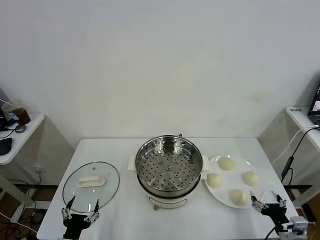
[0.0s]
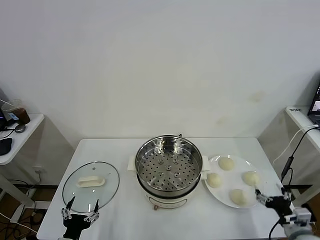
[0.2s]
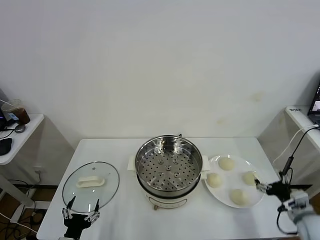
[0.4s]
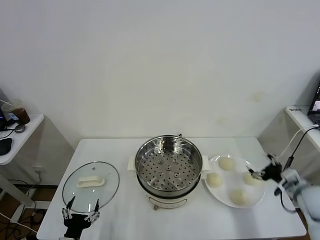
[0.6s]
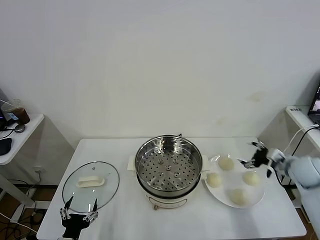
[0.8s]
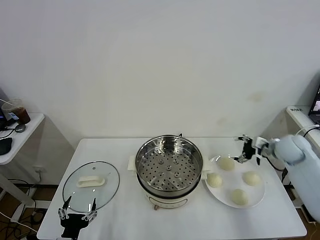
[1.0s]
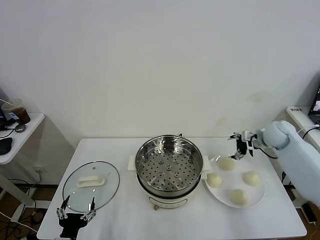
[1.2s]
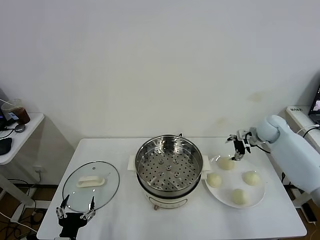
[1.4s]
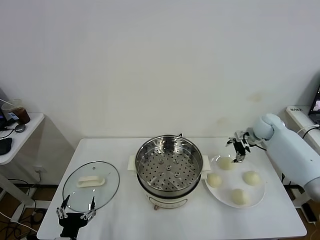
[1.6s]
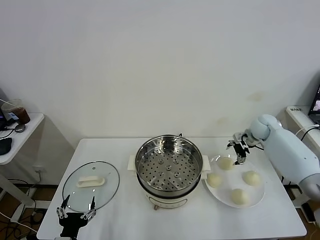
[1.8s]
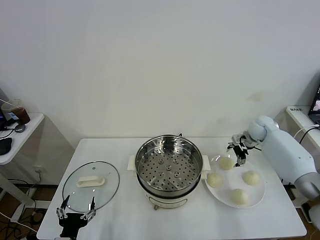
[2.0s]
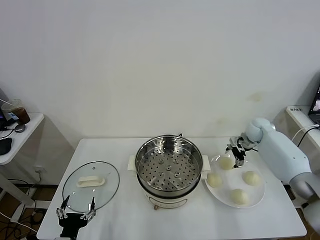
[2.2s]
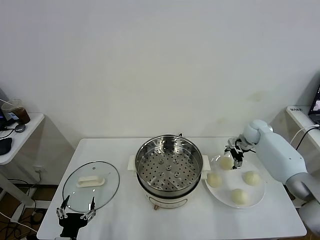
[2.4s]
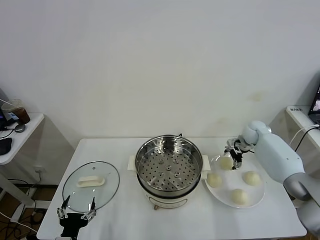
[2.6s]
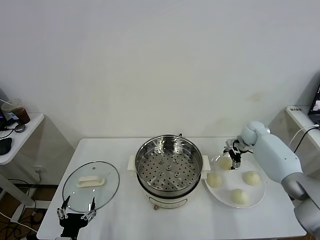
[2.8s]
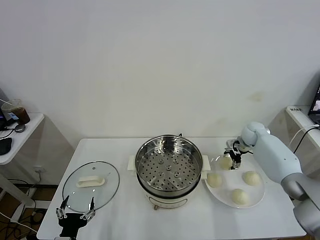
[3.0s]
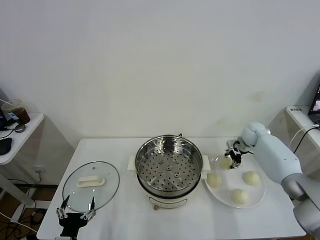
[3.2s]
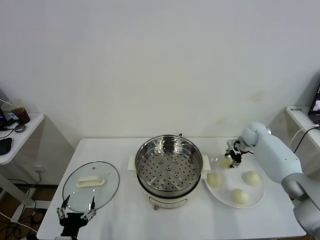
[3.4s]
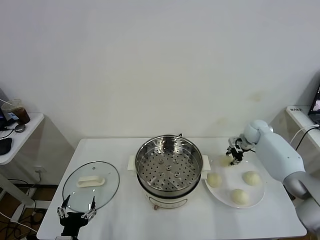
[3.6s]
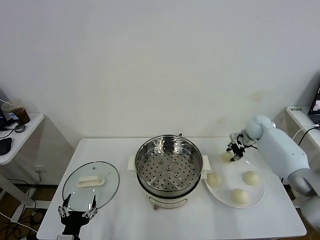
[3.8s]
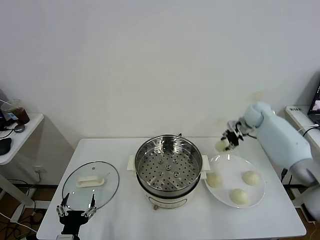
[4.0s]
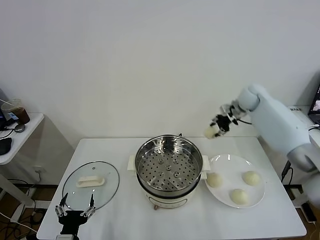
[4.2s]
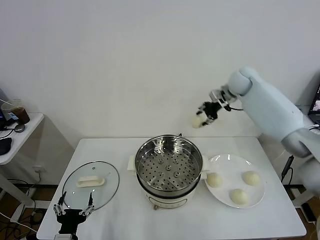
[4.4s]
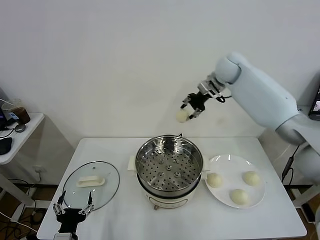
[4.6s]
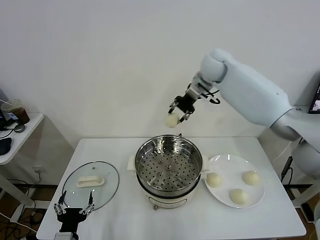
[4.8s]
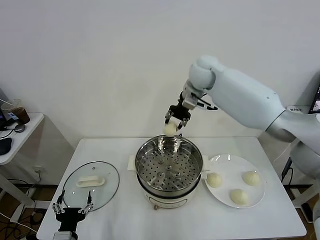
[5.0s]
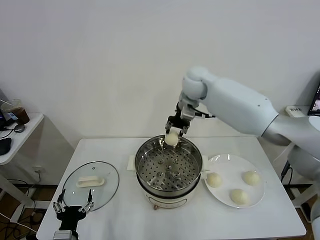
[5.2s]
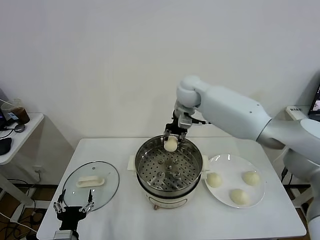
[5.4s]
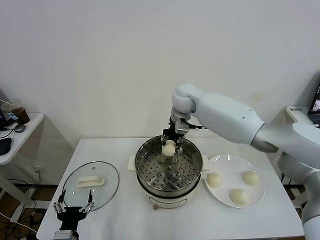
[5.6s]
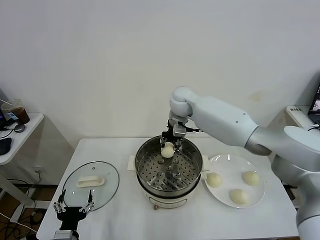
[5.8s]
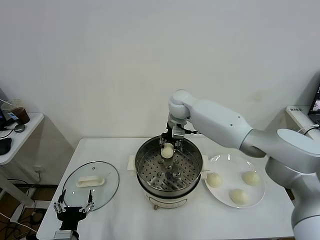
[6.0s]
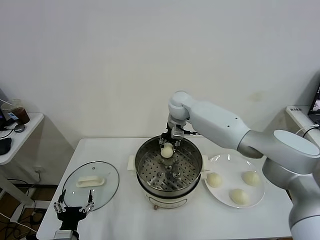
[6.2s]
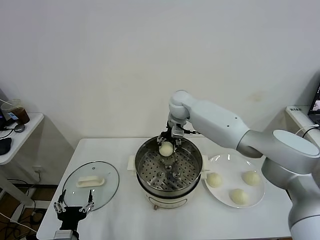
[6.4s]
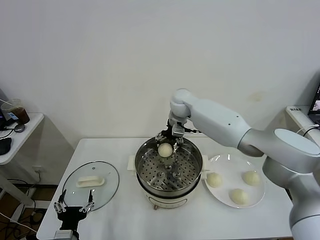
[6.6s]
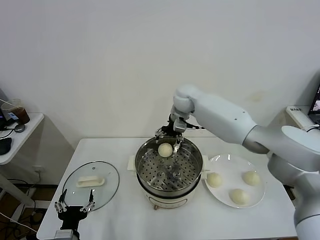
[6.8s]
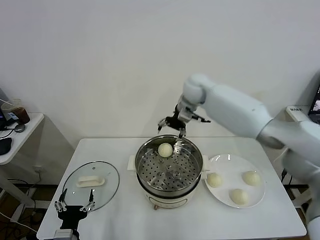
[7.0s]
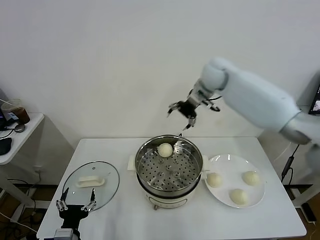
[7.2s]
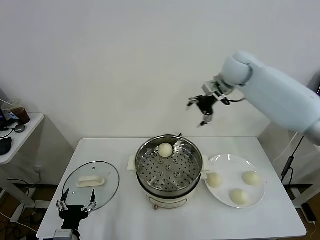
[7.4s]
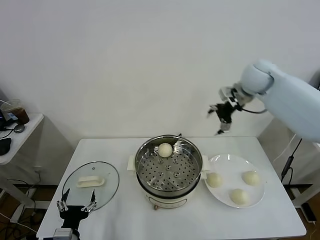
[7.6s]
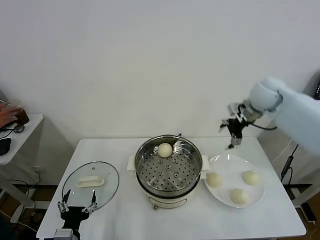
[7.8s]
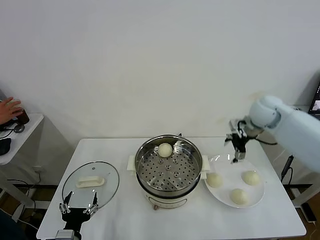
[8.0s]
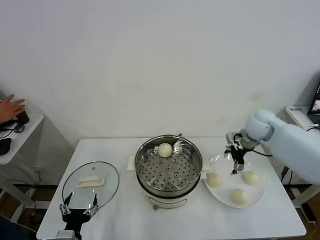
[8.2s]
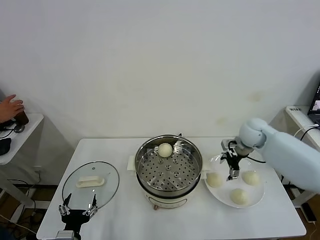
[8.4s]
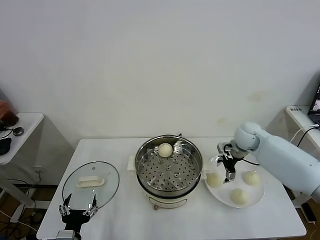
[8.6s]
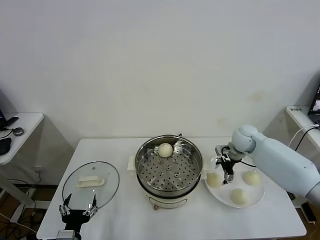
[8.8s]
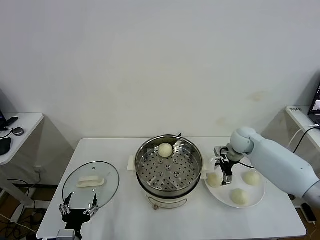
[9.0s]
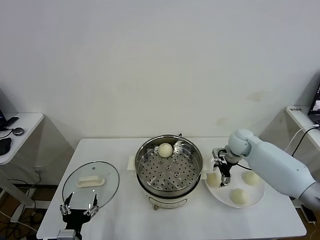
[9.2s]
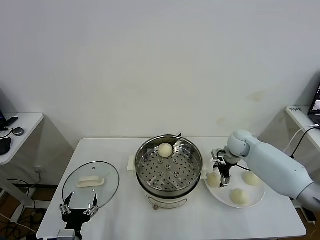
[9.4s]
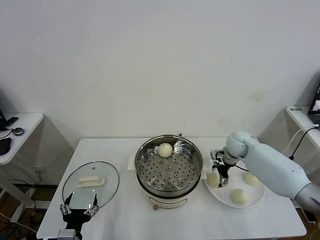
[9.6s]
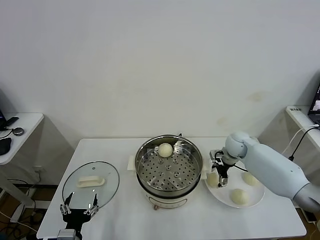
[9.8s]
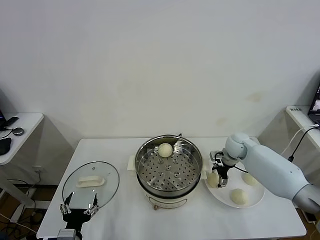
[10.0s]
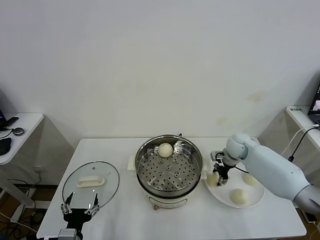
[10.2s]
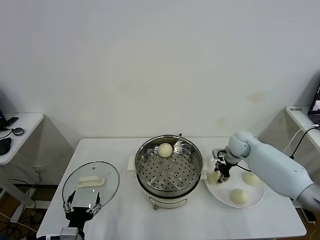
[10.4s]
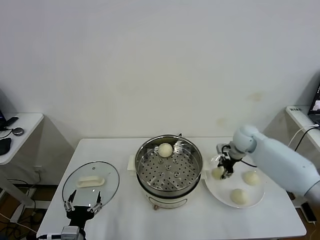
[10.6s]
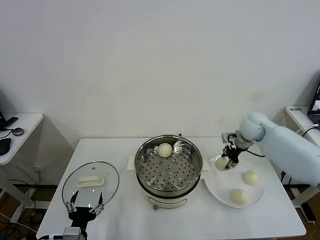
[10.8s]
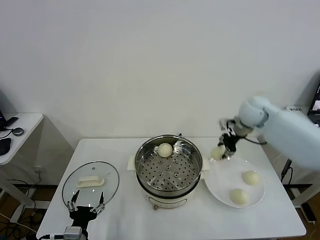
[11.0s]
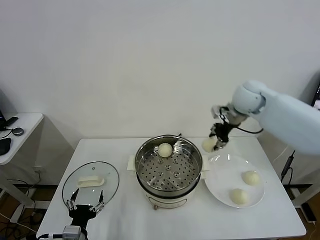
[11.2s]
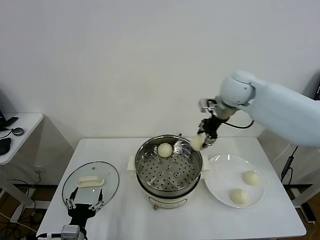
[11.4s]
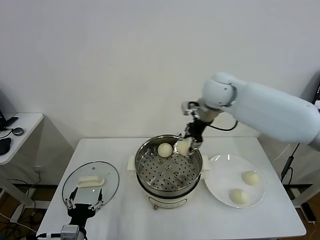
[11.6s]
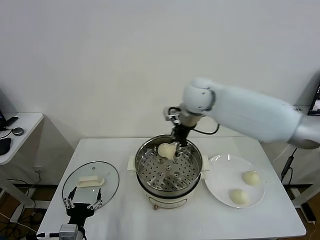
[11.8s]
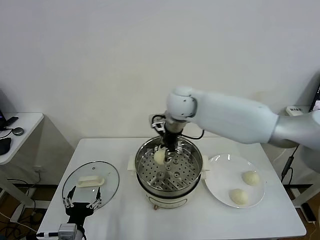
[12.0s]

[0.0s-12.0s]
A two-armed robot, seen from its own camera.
Task of the whole recording: take steamed baozi put them in steamer.
Step, 0.0s to 3.4s: Grasp the baozi in the plate with right gripper.
Step, 3.6s to 6.6s: Place the baozi on the steamer with right gripper.
Step, 6.8s to 10.4s: Grasp the baozi in the plate with right gripper.
1.6s to 3.0s: The right gripper is displaced downward by roughly 5 cm.
3.0s to 4.4s: The right gripper goes about 25 cm upward and to the left, and closes.
4.4s to 6.0s: The right gripper heads to the left and downward, covering about 20 cm.
6.0s to 7.6s: The right gripper heads to the right and upward, covering some 25 cm, and opens.
7.6s to 9.0s: The right gripper heads downward, covering some 25 cm.
9.0s to 10.4s: The right gripper closes up.
10.4s to 12.0s: The right gripper shifts roughly 30 cm to the left and upward.

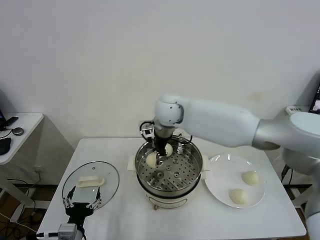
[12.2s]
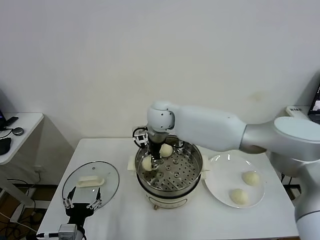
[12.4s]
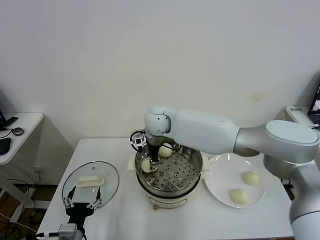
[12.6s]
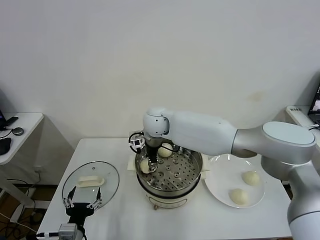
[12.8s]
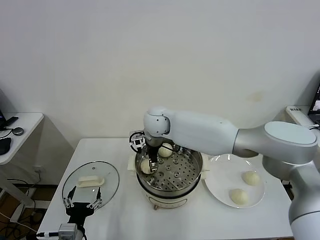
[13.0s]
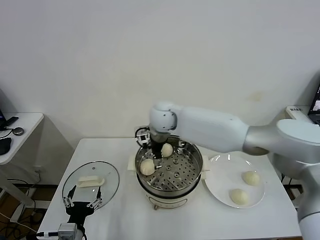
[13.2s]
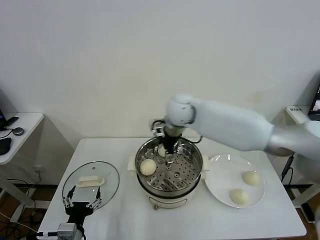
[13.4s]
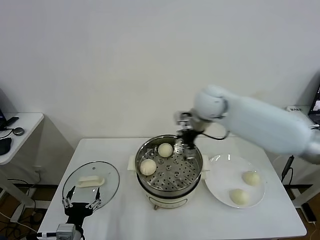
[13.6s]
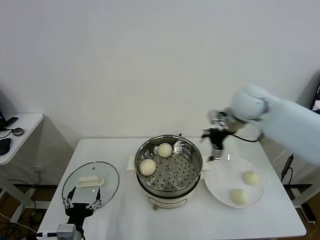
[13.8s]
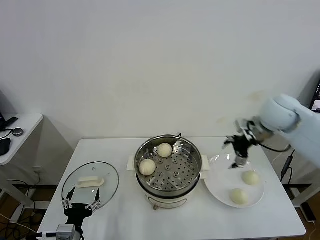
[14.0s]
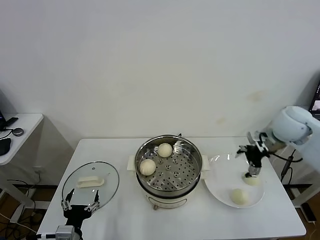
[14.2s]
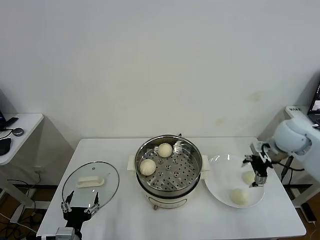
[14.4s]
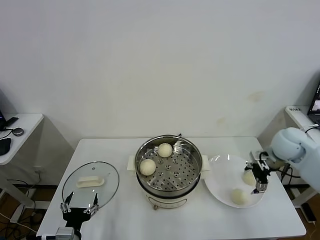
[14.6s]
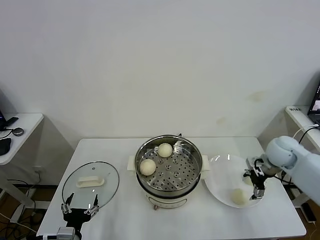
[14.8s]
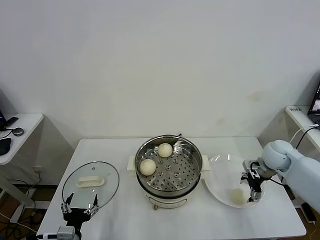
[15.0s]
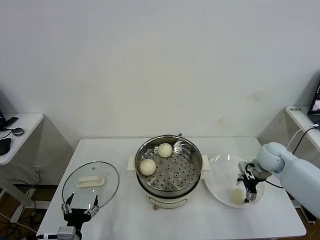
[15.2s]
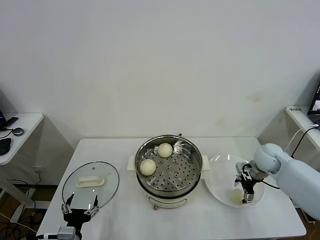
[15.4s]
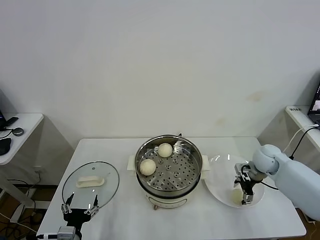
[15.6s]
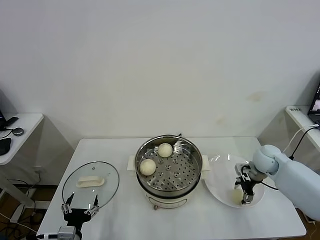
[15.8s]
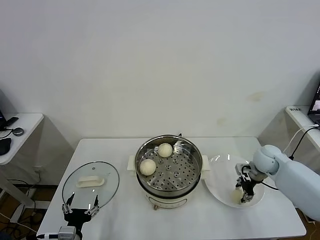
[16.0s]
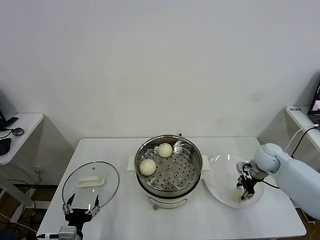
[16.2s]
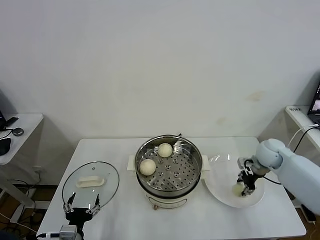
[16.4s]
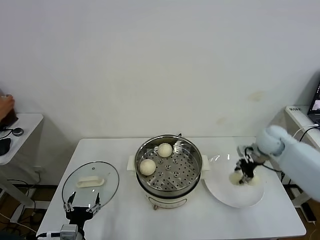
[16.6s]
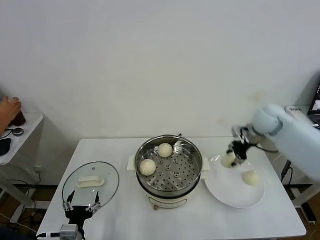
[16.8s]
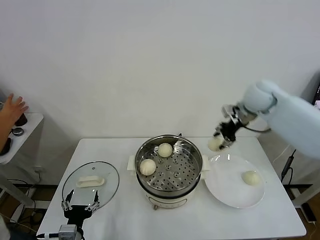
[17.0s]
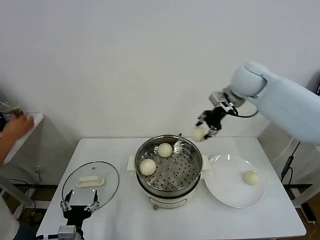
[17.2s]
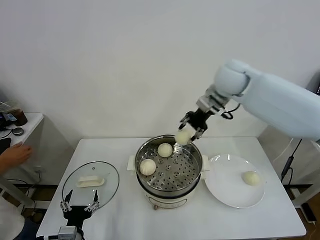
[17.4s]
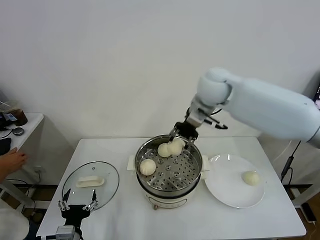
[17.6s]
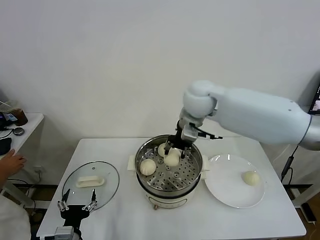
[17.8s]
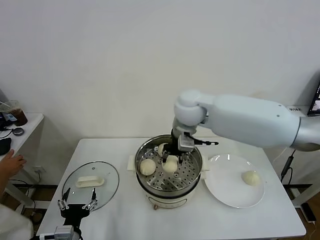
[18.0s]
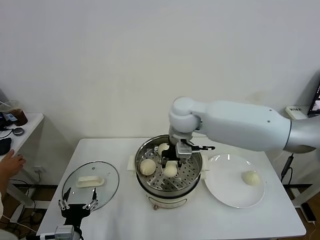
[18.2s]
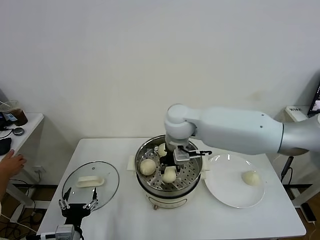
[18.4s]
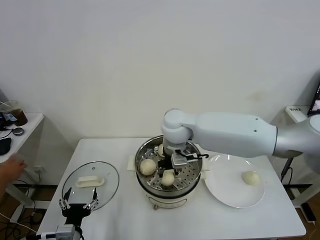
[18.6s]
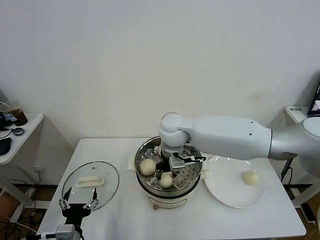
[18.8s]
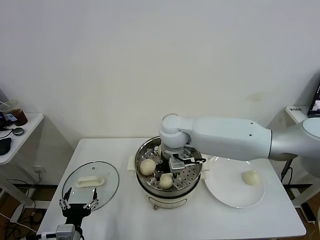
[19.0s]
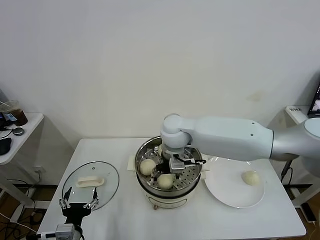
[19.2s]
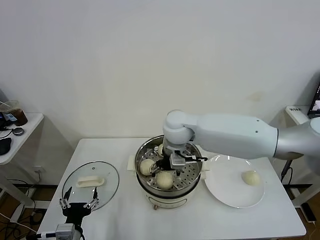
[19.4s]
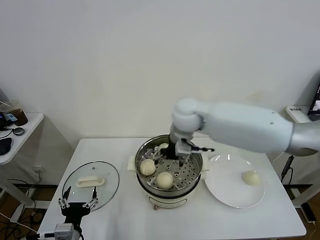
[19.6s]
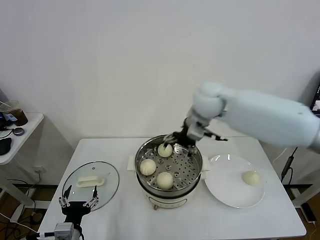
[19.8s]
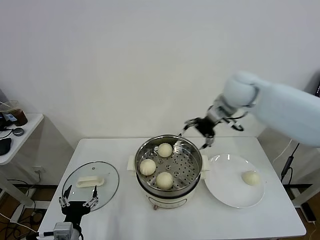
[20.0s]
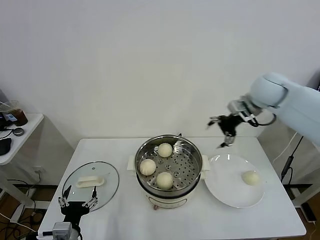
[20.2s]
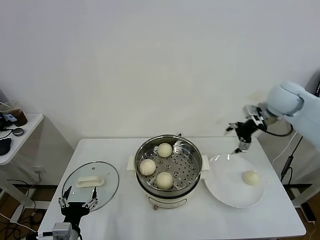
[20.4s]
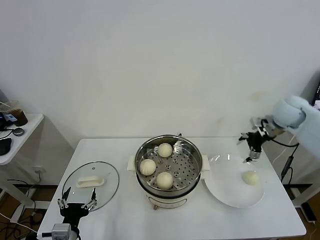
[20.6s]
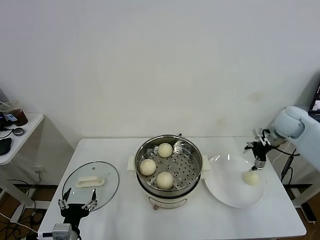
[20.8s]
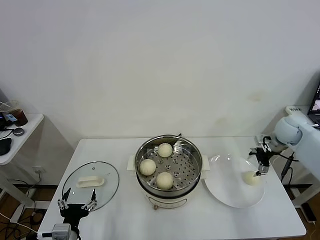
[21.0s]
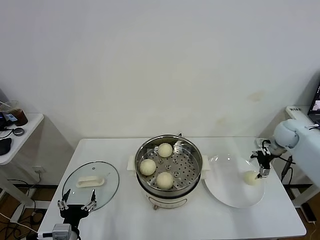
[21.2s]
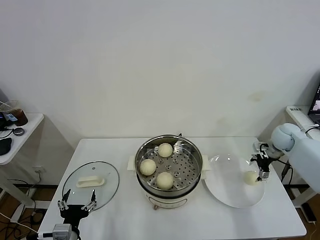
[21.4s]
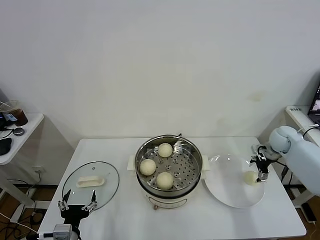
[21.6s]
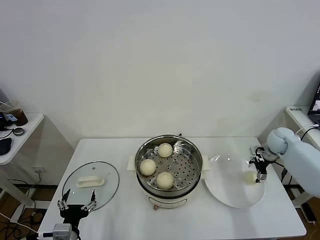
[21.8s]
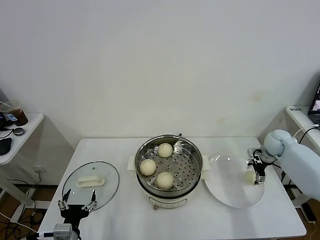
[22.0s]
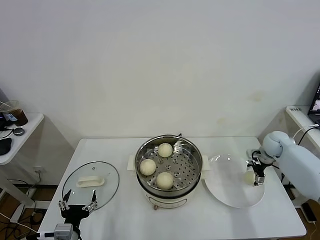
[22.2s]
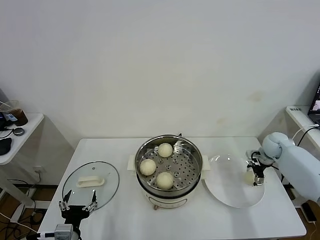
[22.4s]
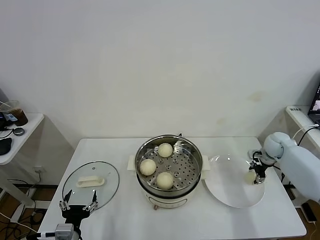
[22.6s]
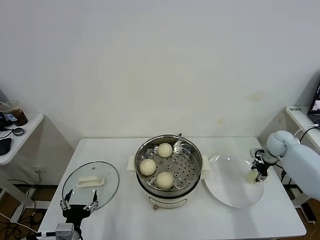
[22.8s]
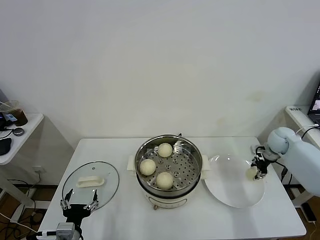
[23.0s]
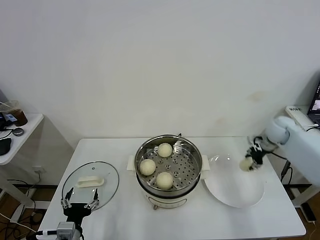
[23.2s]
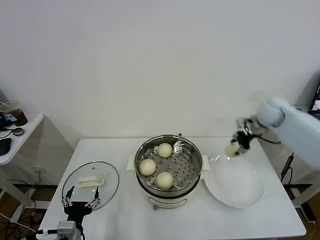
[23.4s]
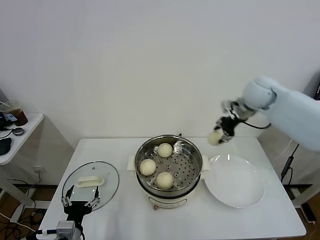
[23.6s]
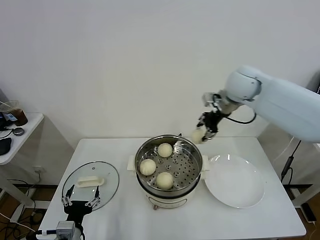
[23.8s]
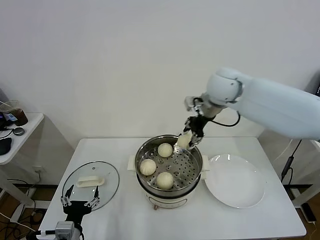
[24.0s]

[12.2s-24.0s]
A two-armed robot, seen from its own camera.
Task of the whole recording: take steamed baozi put them in steamer.
Step, 13.4s to 16.2s: Grasp the baozi in the plate with right gripper.
Step, 16.4s to 19.2s: Place the baozi on the steamer with right gripper.
Step, 19.6s to 22.6s: Grasp the baozi in the plate with right gripper.
12.2s to 13.6s: The right gripper is displaced to the right by some 15 cm, and opens up.
13.6s to 15.2s: The right gripper goes roughly 30 cm to the right and downward.
15.2s to 16.6s: The right gripper shifts by approximately 5 cm, and closes its fingers.
16.6s to 18.2s: The right gripper shifts some 30 cm to the left.
18.2s to 19.6s: The right gripper opens up.
19.6s to 21.0s: The right gripper heads to the right, covering some 35 cm.
21.0s to 22.6s: The right gripper travels downward by approximately 10 cm, and closes.
22.6s to 24.0s: The right gripper is displaced to the left and upward by about 40 cm, and closes.
